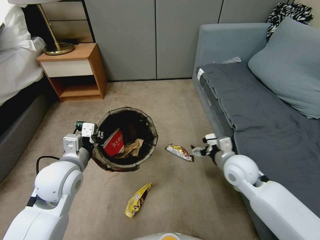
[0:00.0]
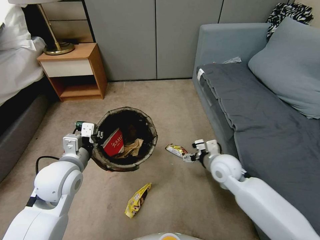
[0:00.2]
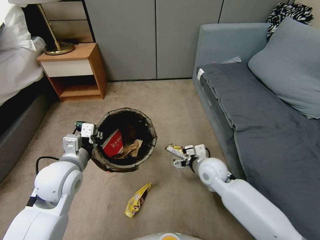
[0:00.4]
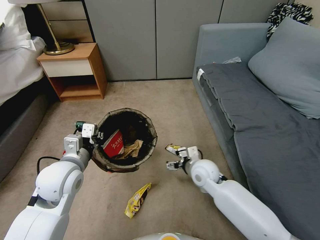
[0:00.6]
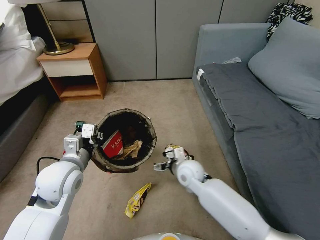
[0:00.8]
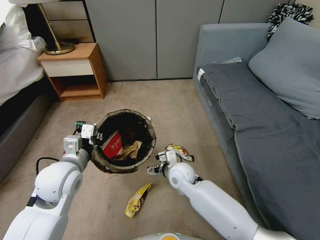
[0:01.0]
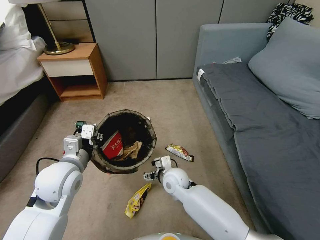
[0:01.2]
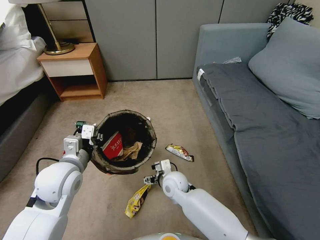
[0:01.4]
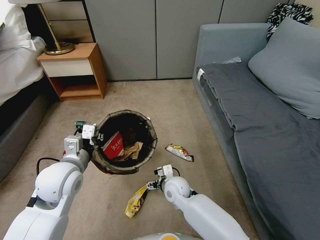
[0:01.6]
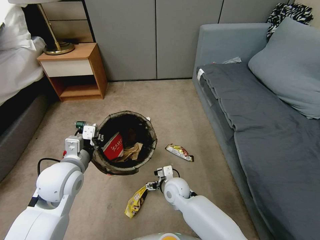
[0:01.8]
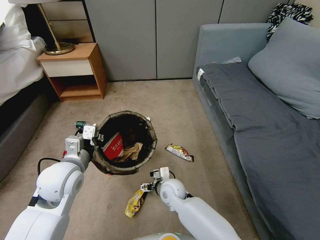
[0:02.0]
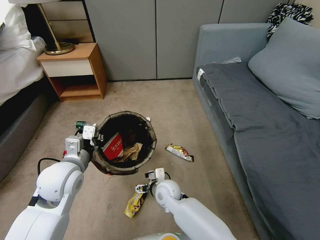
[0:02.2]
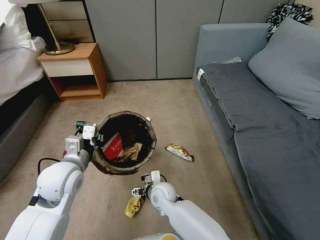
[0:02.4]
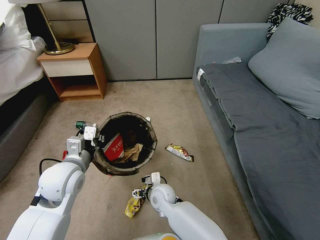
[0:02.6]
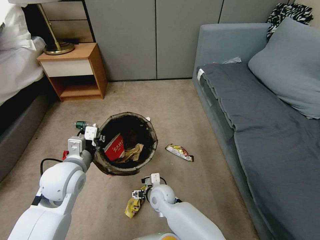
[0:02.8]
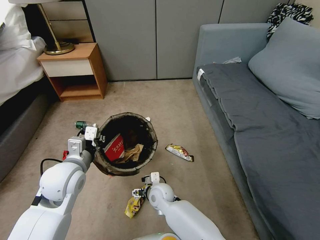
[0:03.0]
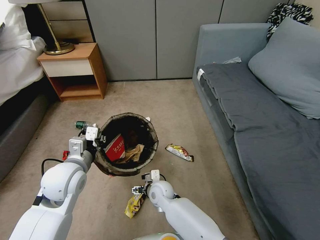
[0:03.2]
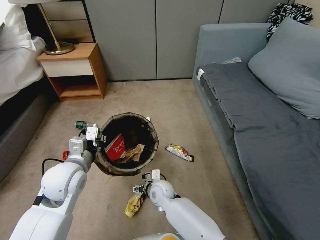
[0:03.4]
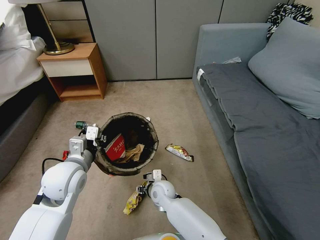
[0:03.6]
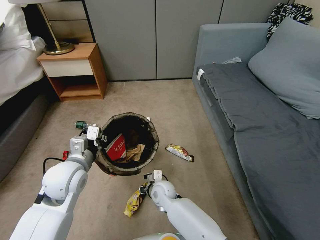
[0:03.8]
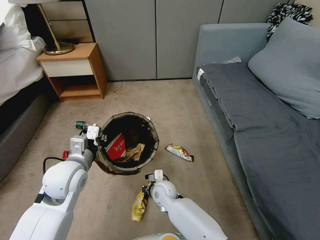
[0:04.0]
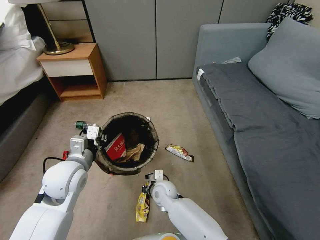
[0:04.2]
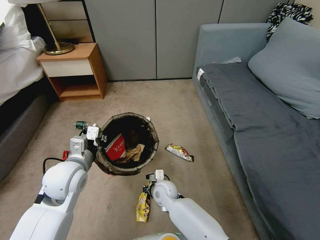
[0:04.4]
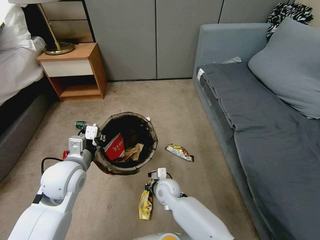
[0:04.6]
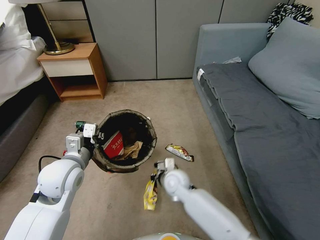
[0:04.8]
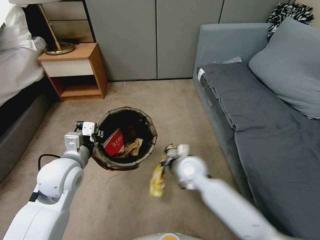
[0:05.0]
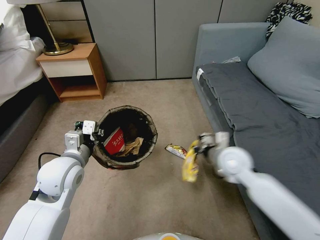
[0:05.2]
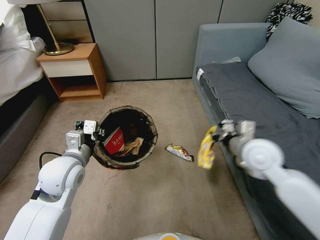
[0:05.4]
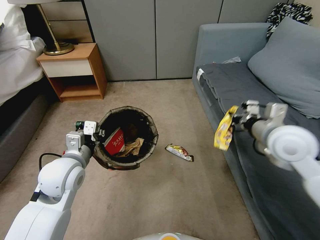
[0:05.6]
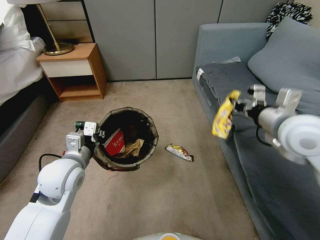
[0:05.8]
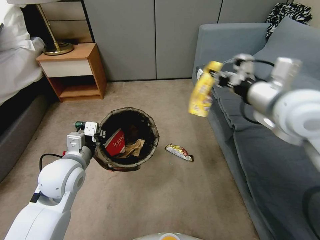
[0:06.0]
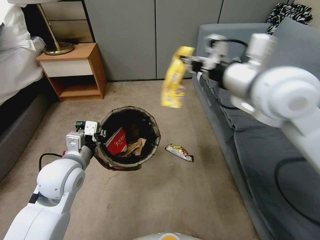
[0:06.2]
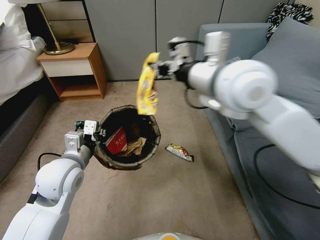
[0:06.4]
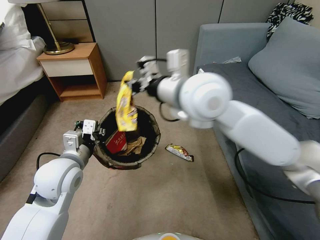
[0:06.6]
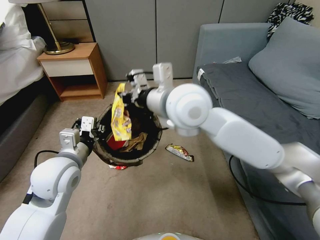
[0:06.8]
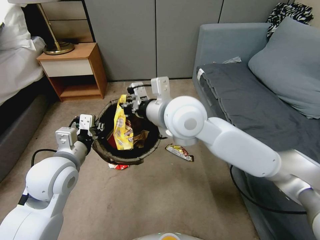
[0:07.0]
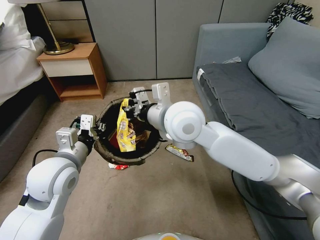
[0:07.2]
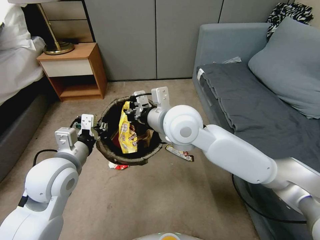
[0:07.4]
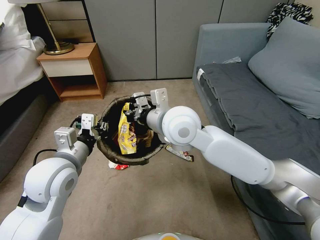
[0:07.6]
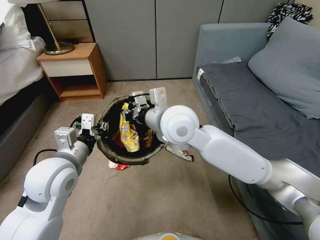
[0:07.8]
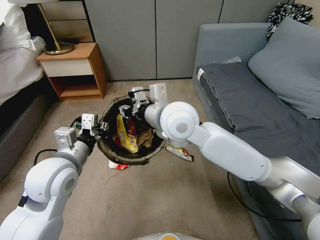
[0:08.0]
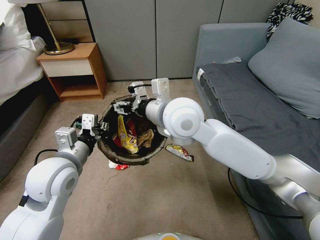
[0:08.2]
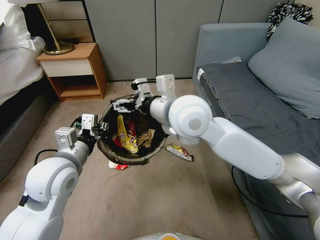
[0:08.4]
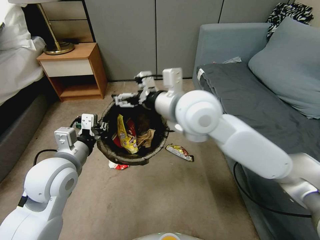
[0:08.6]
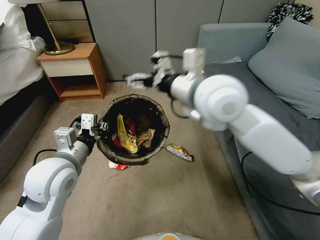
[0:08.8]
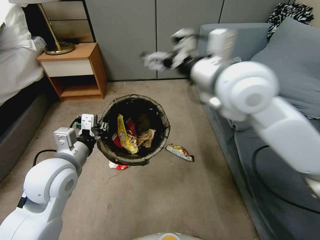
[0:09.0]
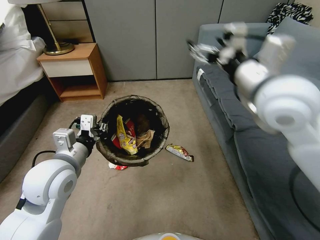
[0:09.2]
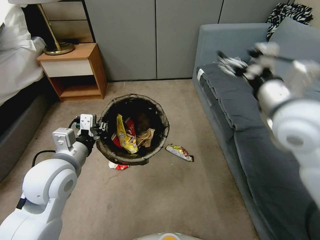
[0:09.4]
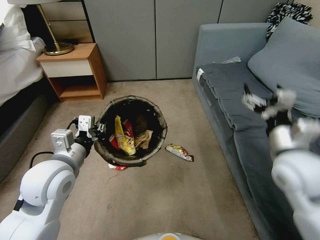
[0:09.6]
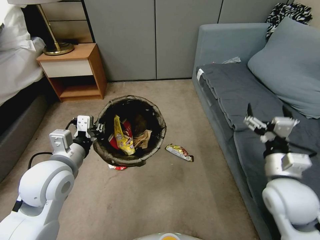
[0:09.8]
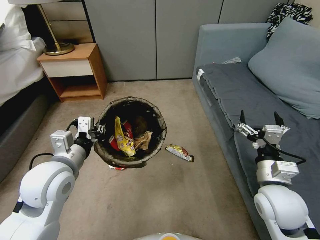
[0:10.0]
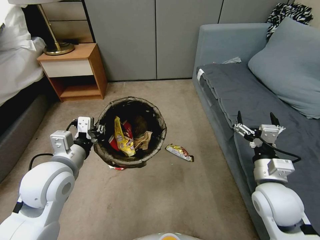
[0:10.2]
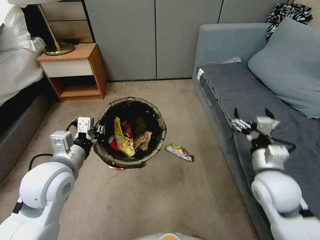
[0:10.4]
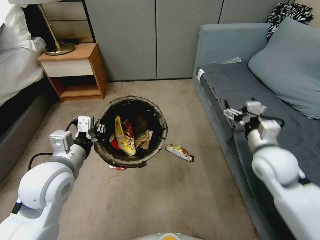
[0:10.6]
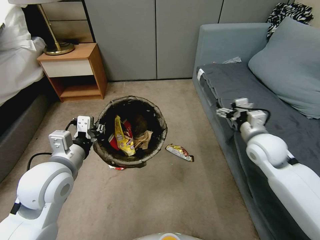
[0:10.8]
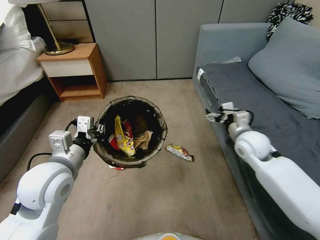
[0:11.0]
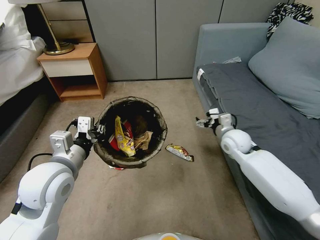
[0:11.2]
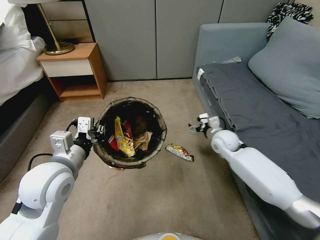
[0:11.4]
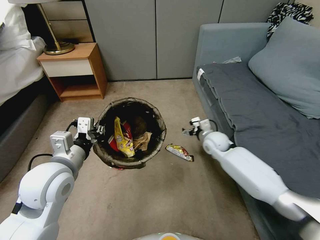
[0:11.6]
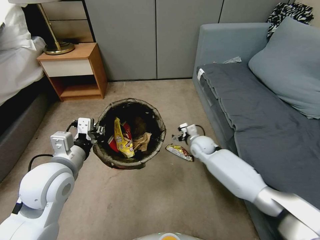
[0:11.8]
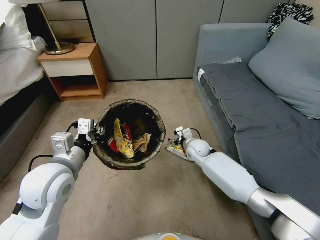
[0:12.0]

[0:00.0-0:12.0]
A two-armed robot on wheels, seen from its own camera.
Task of the whole recording: Pick up the trash bin, then pick up the garbage from the floor and place it into the trash bin.
0:00.0 to 0:01.6: The right gripper shifts approximately 25 cm to the left and downward.
0:01.6 to 0:03.0: The right gripper goes roughly 5 cm to the left.
0:03.0 to 0:04.4: The right gripper closes up.
0:04.4 to 0:06.0: The right gripper is displaced upward and to the right by some 50 cm.
0:06.0 to 0:07.6: The right gripper shifts some 25 cm to the left.
0:07.6 to 0:09.0: The right gripper moves upward and to the right, roughly 15 cm, and opens.
0:09.0 to 0:10.4: The right gripper moves downward and to the right, some 30 cm.
0:10.4 to 0:12.0: The right gripper is displaced forward, downward and to the left by approximately 30 cm.

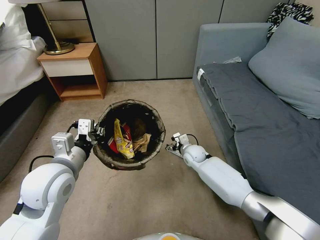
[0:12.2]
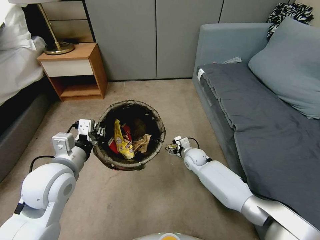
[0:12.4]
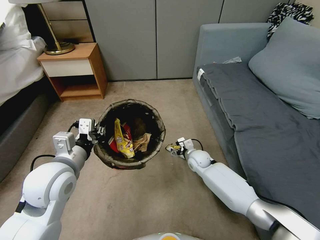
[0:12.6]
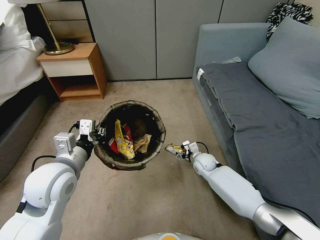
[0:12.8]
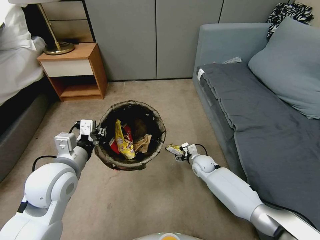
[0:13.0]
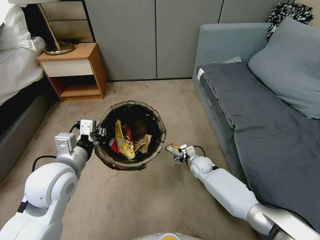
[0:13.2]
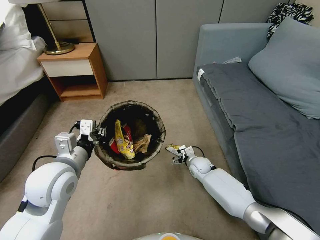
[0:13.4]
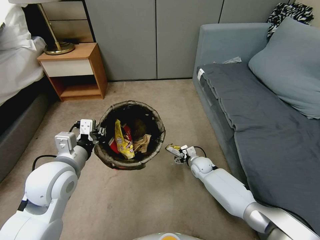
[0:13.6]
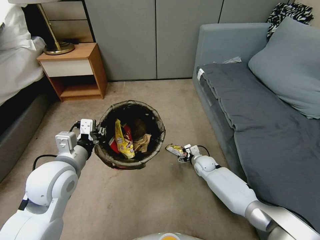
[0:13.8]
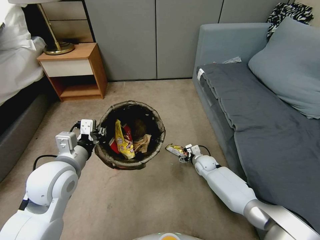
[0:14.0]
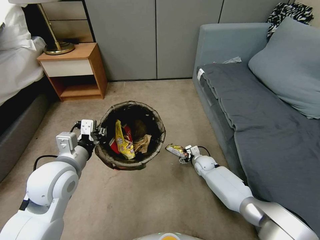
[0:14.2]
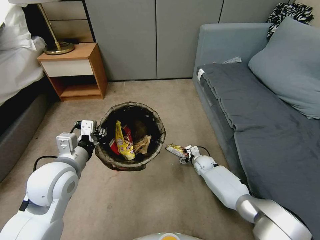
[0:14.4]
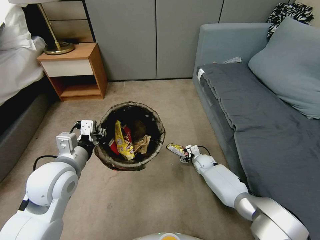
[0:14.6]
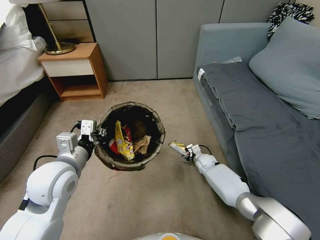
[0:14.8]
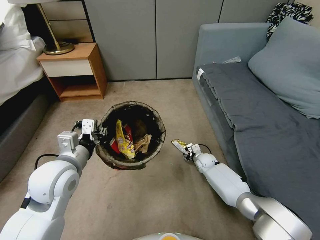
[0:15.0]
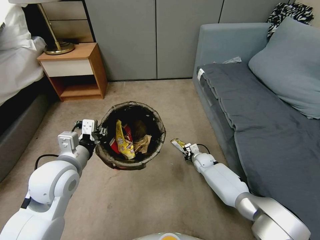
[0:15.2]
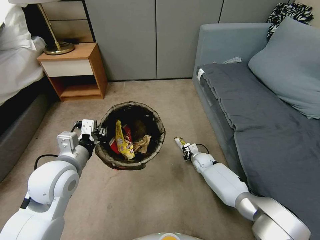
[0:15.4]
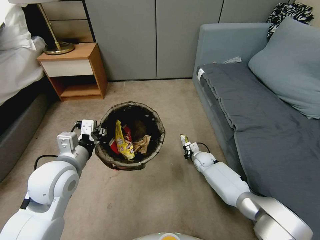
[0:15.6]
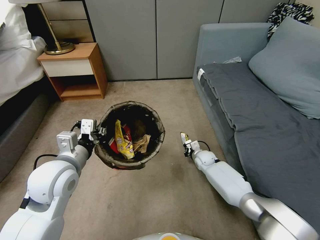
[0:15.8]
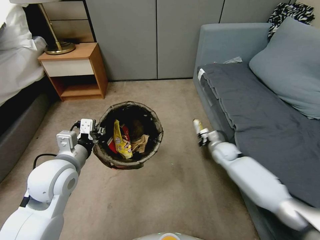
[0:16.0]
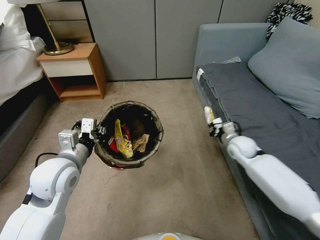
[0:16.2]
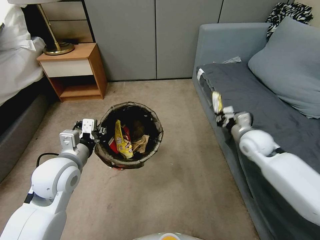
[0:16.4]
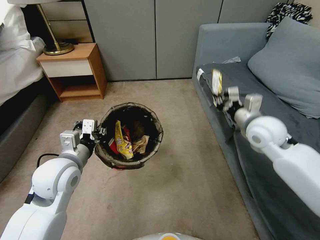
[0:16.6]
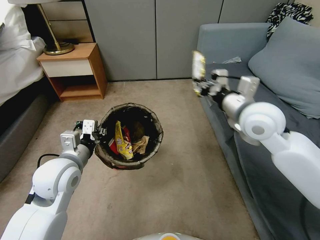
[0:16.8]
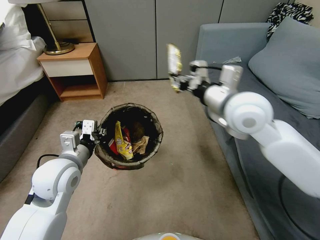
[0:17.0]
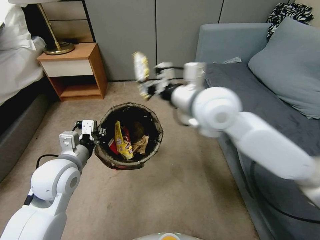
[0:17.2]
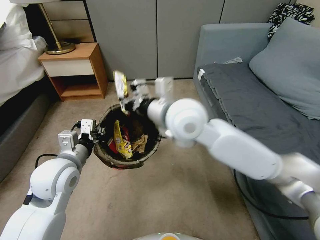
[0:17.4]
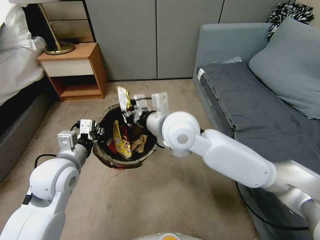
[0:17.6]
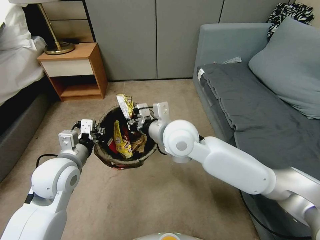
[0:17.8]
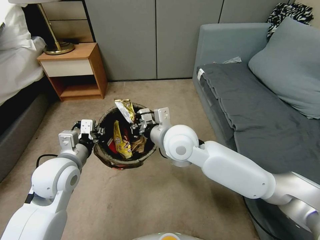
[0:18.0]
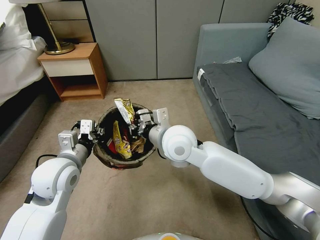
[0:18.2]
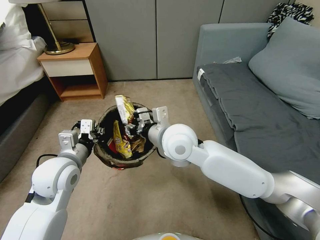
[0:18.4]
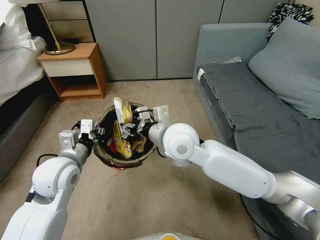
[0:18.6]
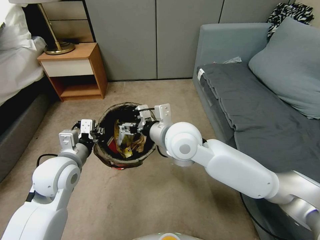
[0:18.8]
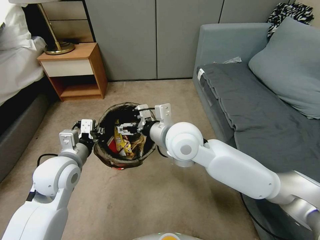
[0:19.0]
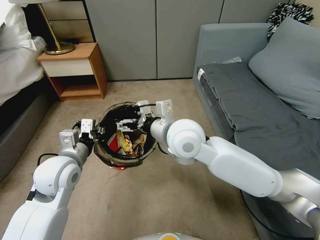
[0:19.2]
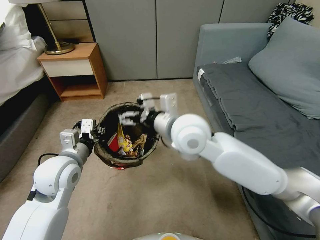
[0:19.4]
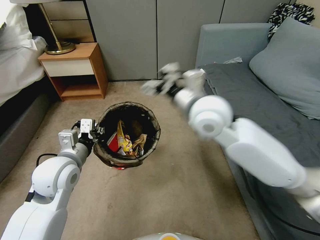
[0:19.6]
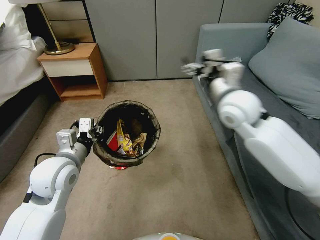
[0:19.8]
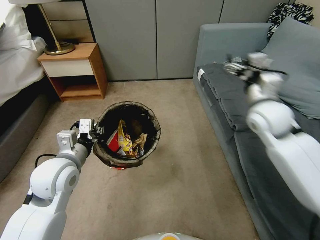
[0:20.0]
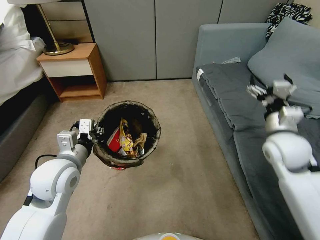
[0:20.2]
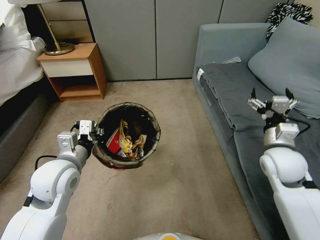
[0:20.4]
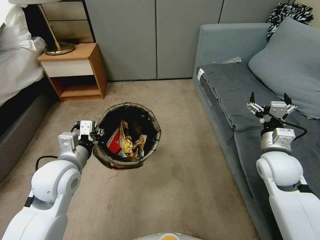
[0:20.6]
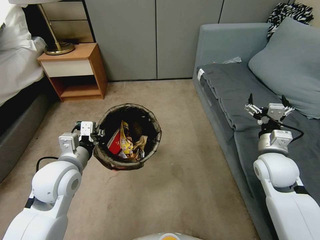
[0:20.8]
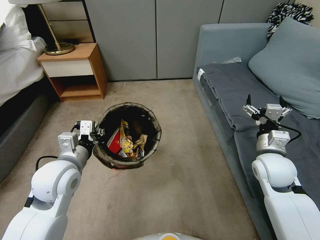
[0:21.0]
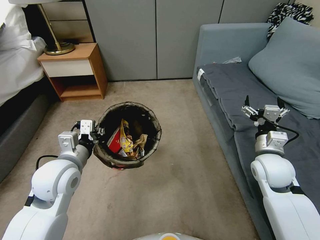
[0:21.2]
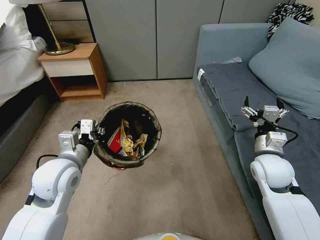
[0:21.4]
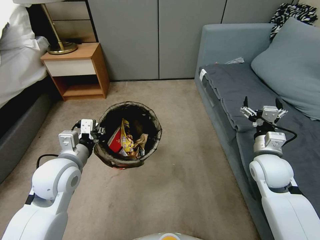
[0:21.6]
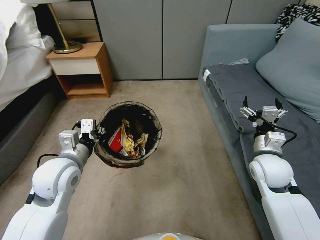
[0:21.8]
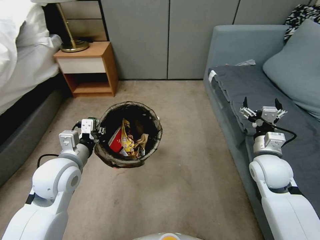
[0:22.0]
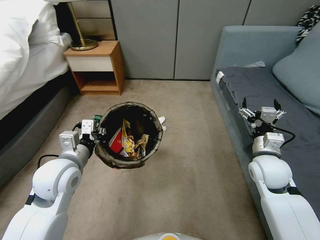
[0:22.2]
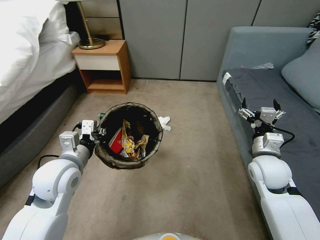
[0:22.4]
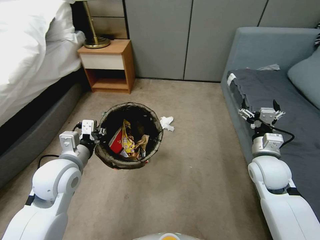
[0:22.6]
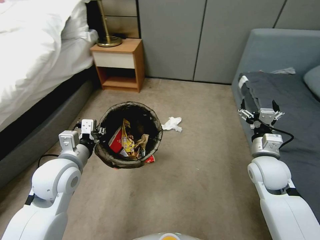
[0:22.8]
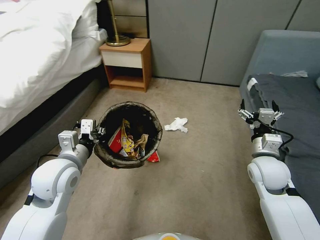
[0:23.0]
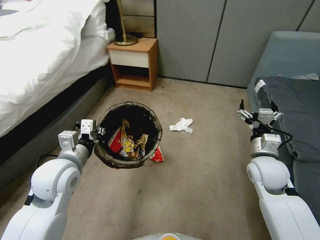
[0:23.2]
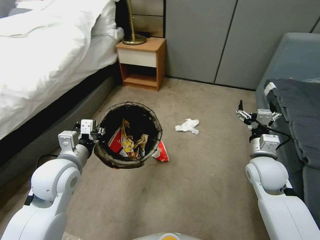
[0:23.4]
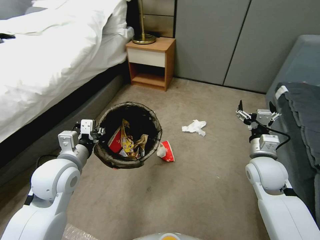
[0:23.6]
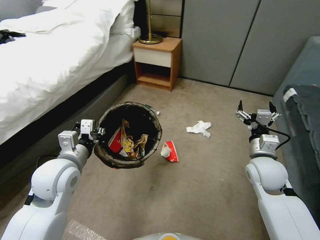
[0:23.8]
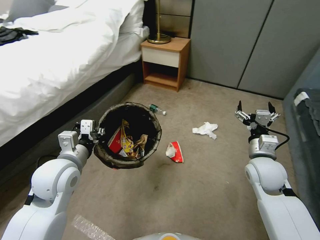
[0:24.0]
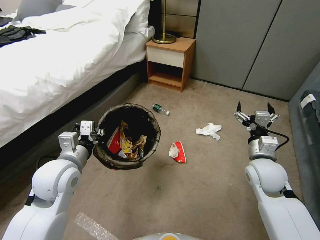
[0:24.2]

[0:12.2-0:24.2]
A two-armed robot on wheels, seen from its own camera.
Task of the whole recording: Pick up the trash bin, then pick up the garbage from the floor and place it into the trash bin.
0:12.2 to 0:13.8: The right gripper is displaced downward and to the right by approximately 10 cm.
0:13.8 to 0:15.2: The right gripper closes.
0:15.2 to 0:16.6: The right gripper is displaced upward by about 35 cm, and closes its fingers.
0:16.6 to 0:18.2: The right gripper travels to the left by roughly 25 cm.
0:18.2 to 0:19.8: The right gripper shifts some 20 cm to the right and upward, and opens up.
0:19.8 to 0:21.2: The right gripper heads downward, to the right and backward, covering approximately 20 cm.
